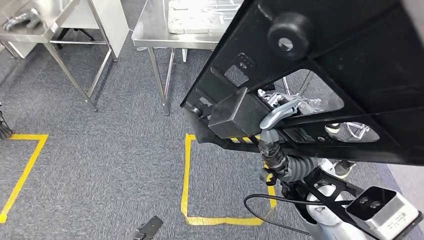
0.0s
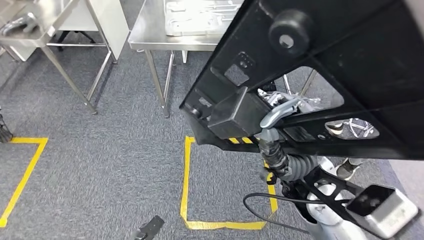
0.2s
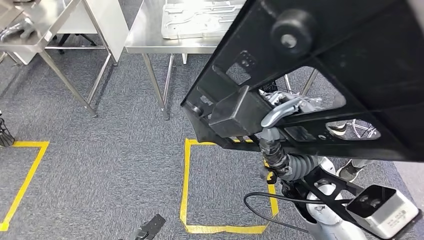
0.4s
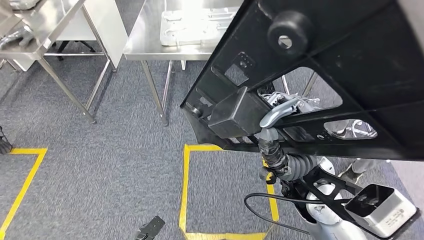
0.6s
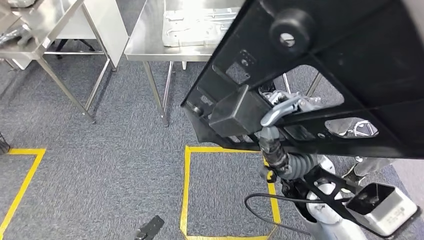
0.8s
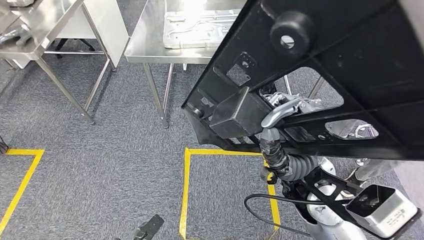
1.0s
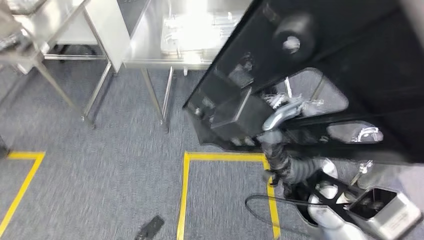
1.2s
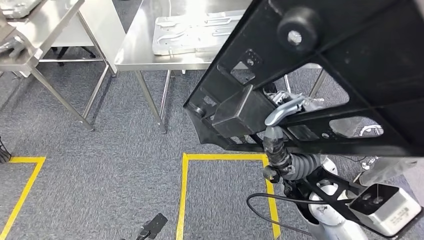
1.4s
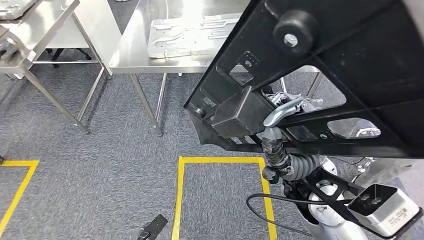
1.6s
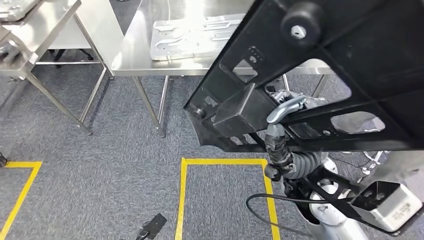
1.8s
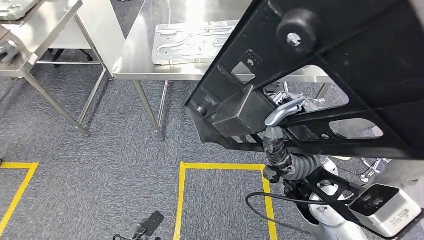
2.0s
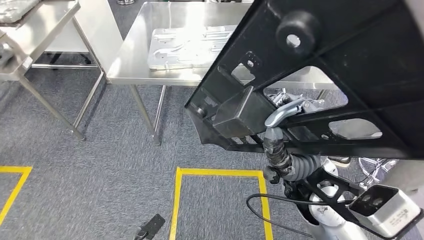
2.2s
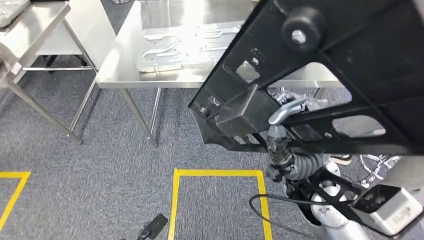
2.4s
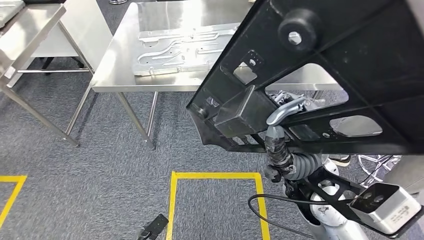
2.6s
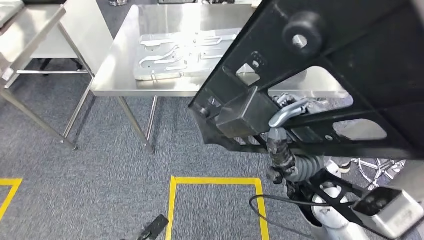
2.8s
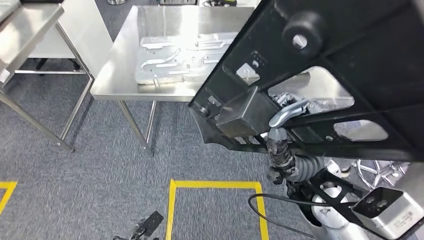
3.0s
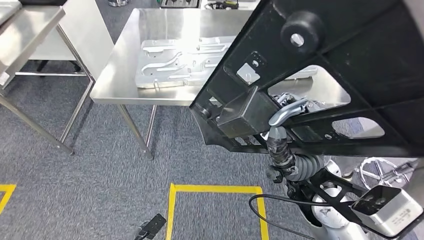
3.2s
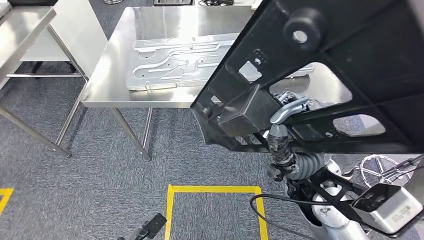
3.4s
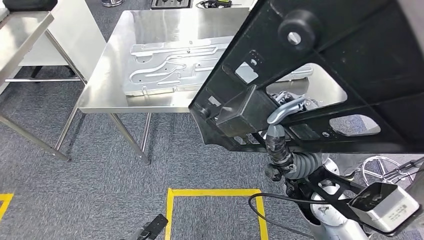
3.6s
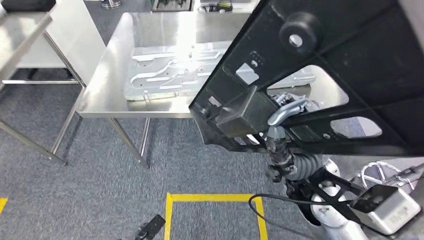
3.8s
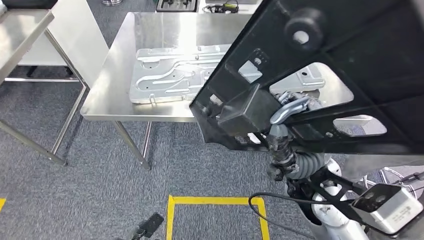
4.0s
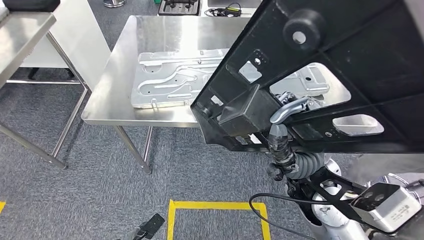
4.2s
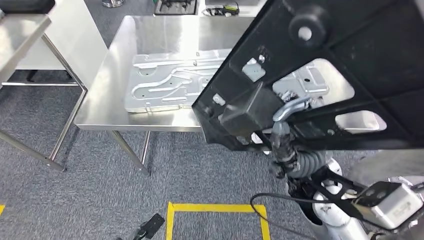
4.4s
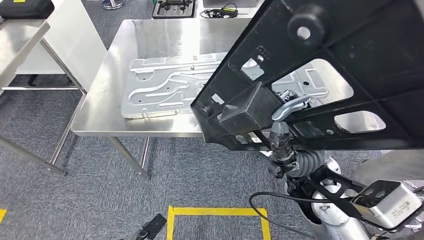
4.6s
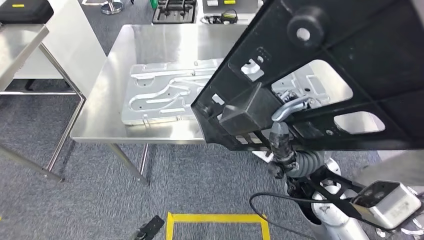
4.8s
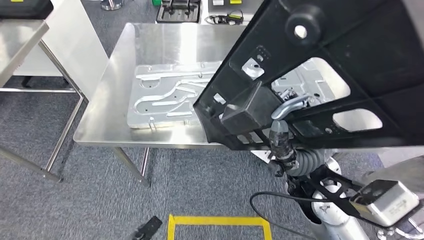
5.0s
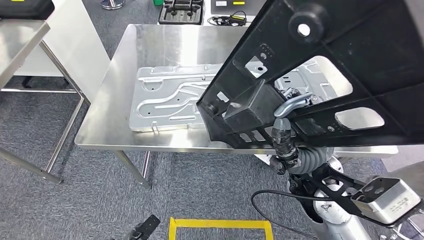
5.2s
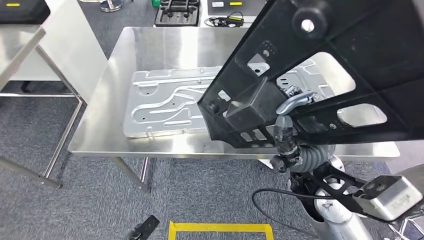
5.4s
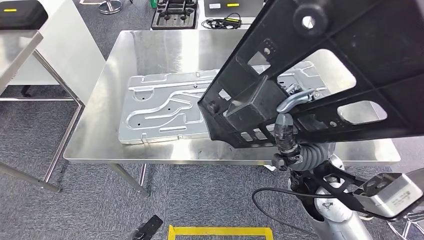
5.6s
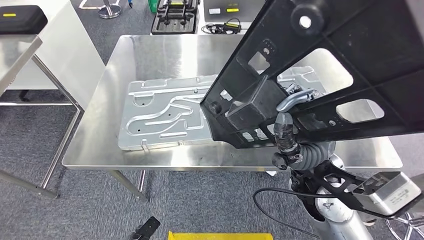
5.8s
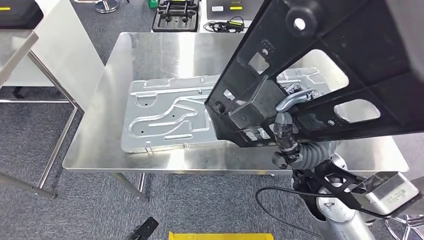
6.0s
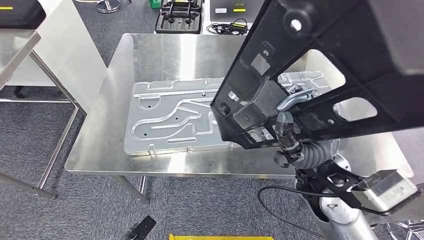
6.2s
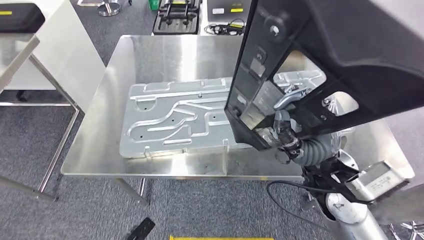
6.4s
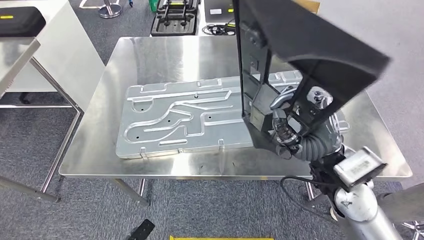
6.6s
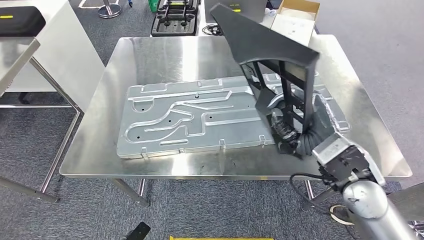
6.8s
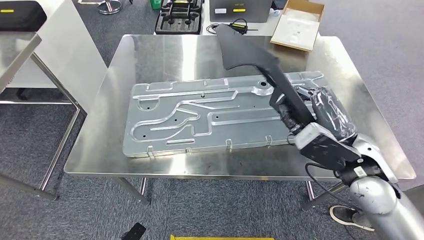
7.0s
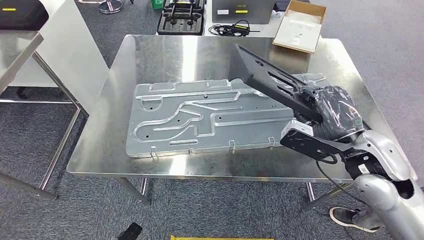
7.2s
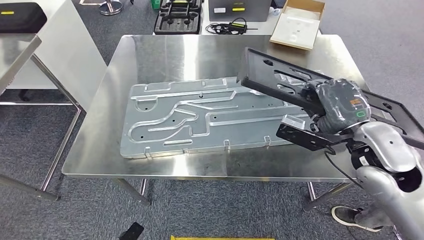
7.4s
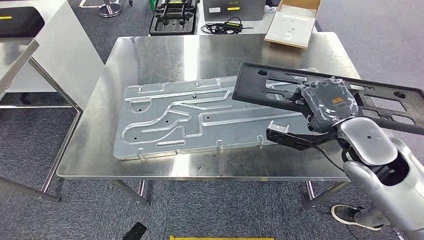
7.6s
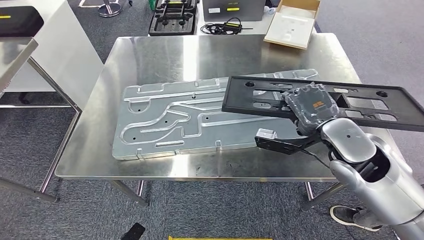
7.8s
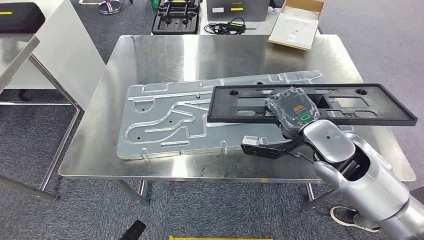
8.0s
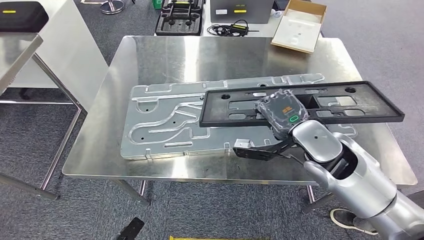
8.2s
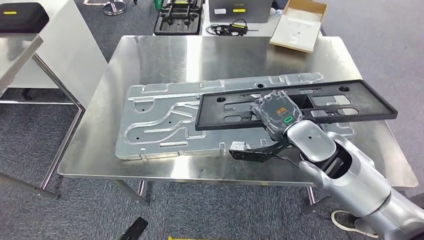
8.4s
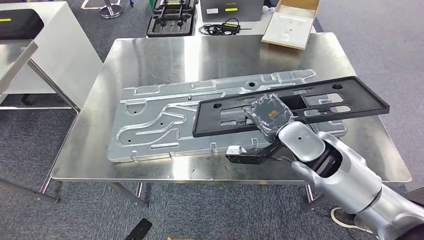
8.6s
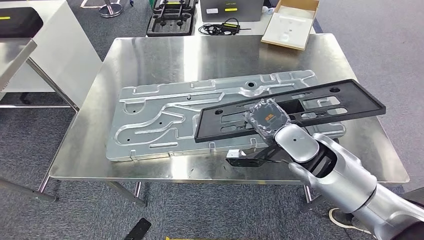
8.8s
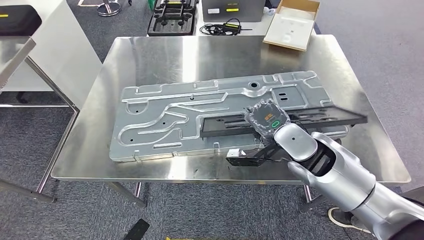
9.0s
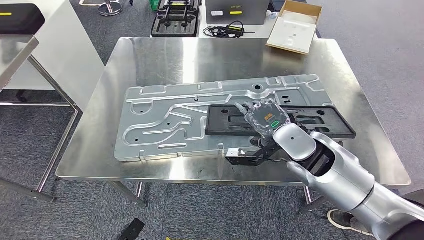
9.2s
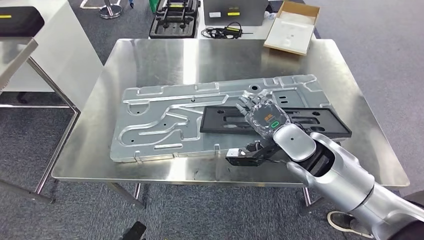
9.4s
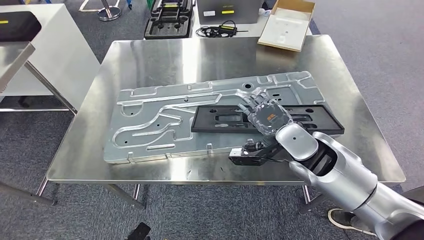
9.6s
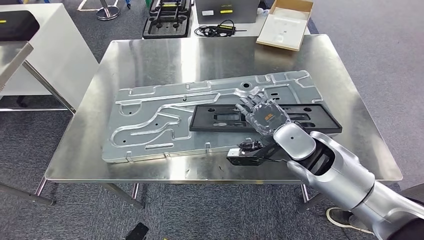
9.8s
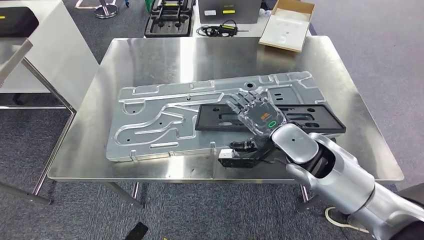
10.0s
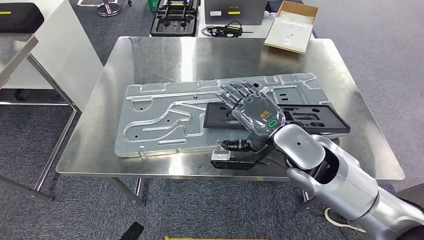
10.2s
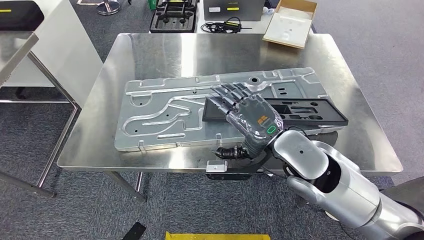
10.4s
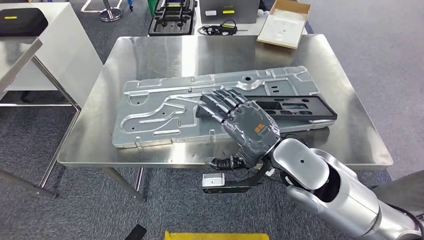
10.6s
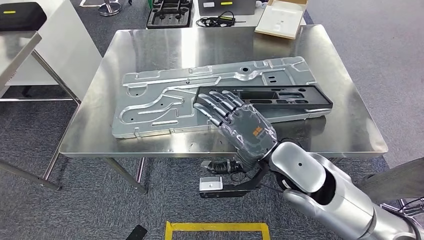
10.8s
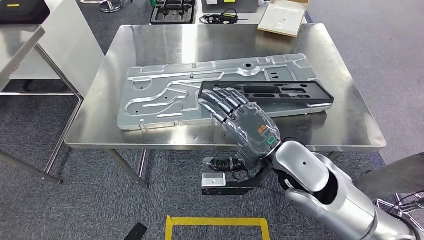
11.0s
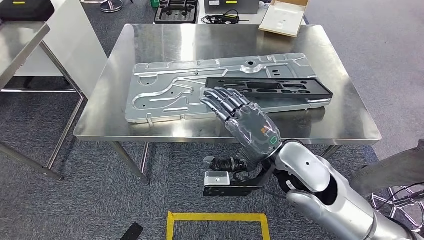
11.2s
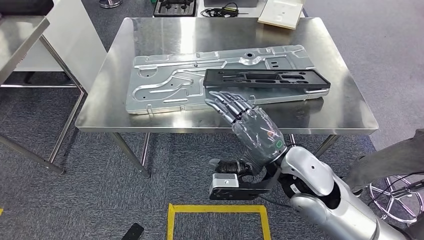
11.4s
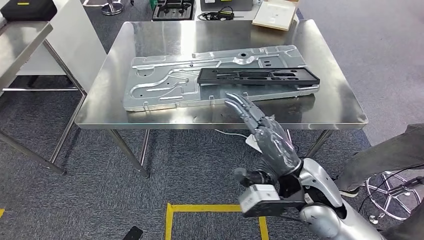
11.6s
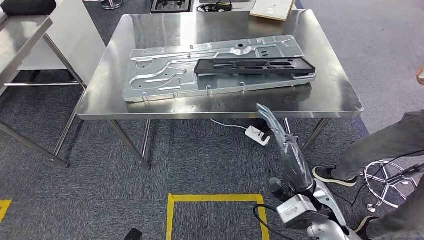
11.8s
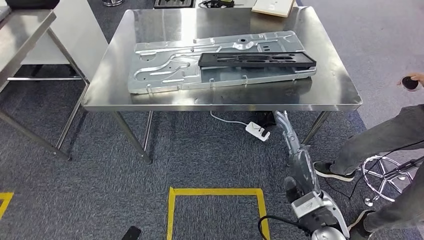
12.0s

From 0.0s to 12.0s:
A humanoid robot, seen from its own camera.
Step, from 0.0s to 6.0s: Move the large material to the workbench.

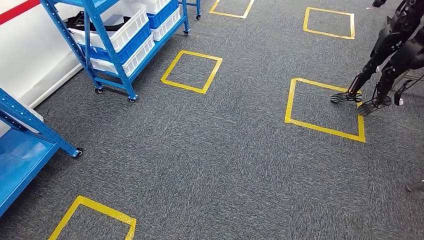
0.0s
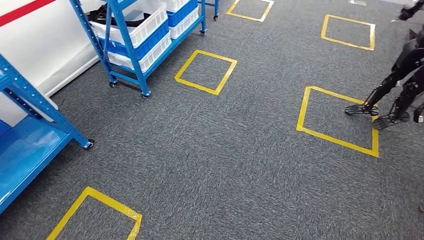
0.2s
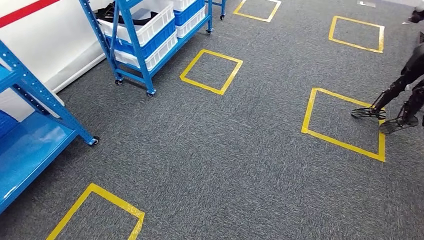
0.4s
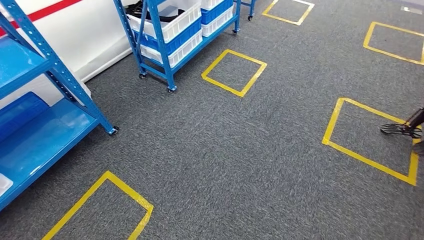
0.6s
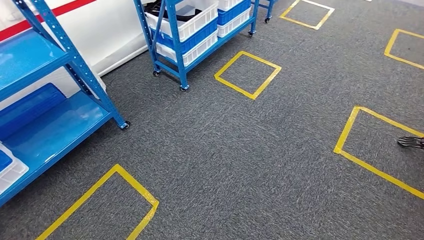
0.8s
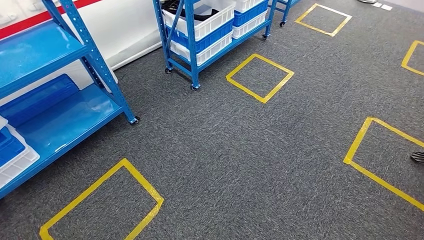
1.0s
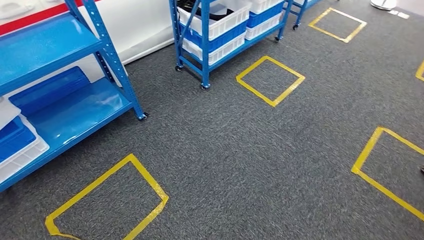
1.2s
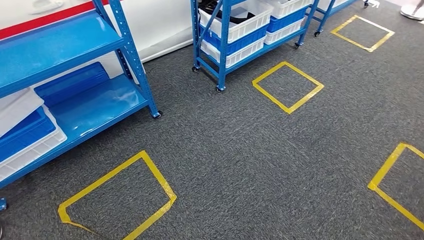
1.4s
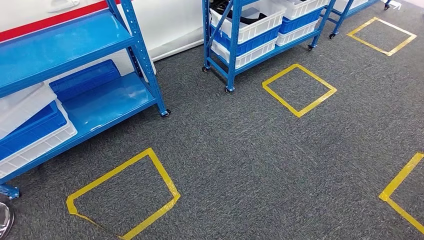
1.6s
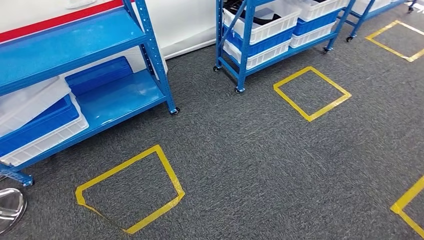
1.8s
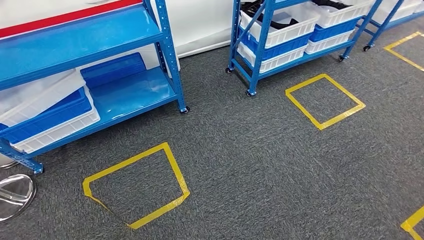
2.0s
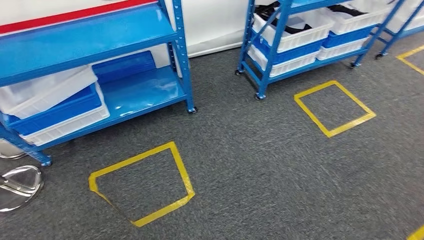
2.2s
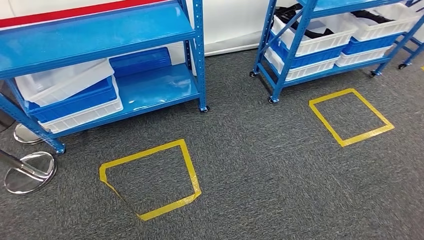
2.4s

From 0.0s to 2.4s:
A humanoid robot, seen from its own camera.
Step, from 0.0s to 2.4s: Move to the initial position of the shelf.
